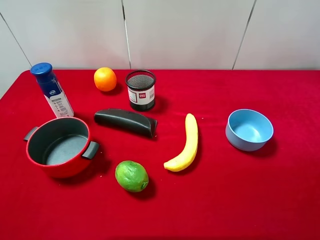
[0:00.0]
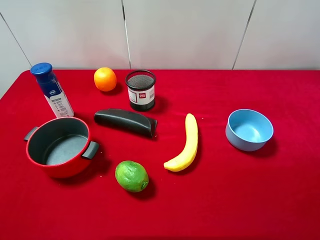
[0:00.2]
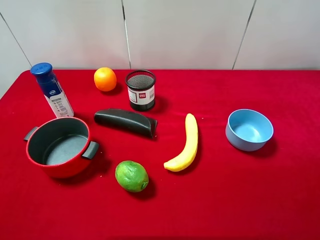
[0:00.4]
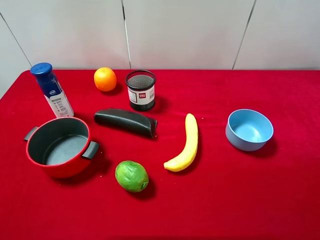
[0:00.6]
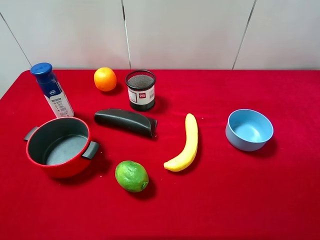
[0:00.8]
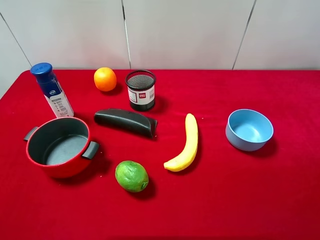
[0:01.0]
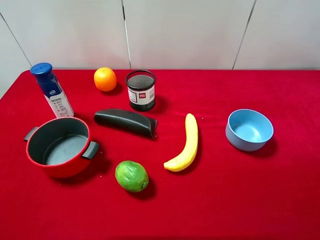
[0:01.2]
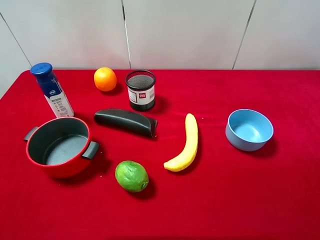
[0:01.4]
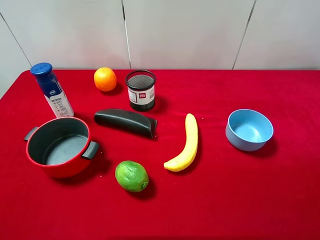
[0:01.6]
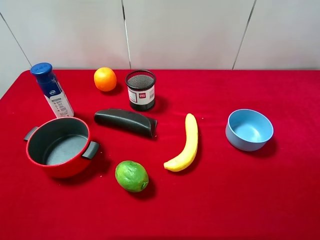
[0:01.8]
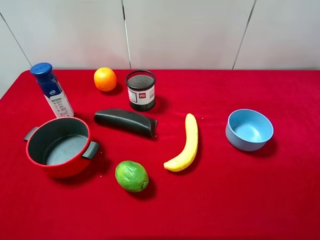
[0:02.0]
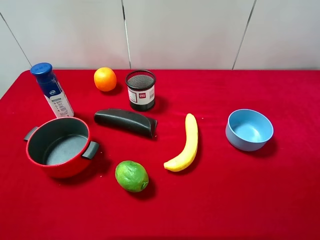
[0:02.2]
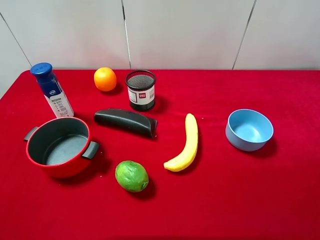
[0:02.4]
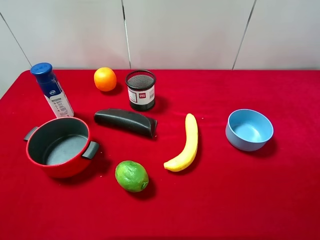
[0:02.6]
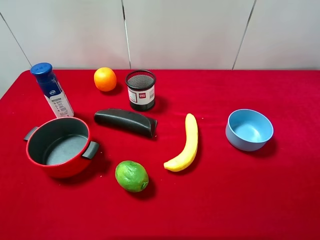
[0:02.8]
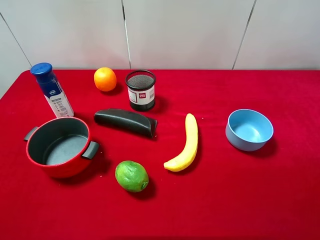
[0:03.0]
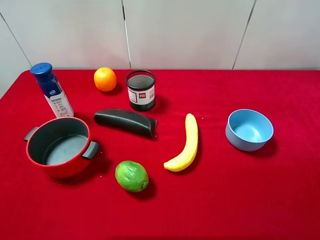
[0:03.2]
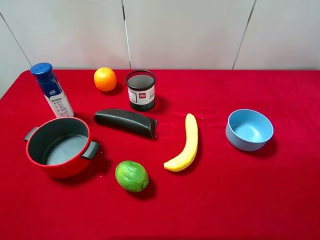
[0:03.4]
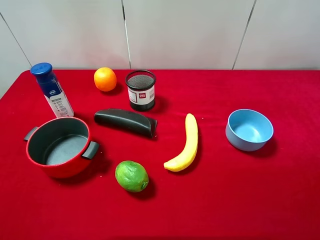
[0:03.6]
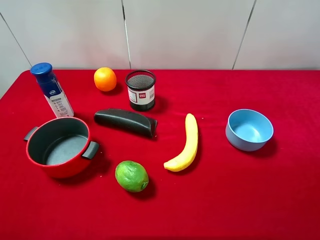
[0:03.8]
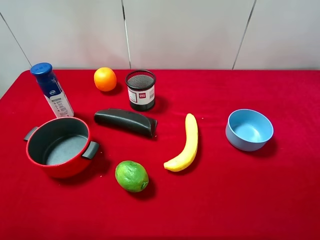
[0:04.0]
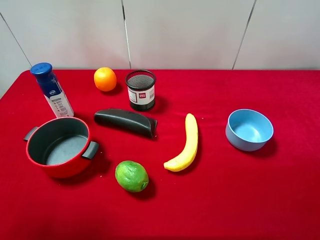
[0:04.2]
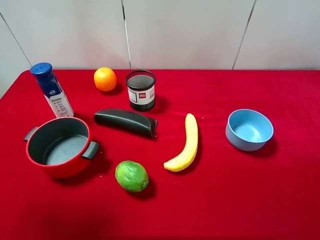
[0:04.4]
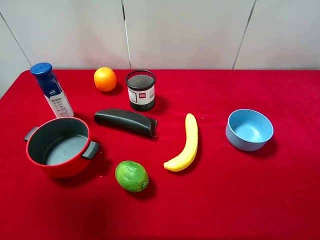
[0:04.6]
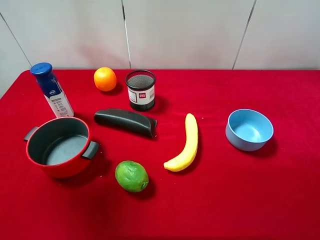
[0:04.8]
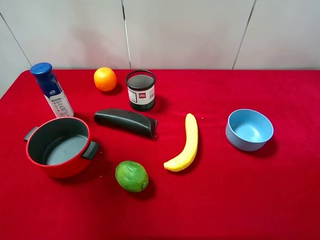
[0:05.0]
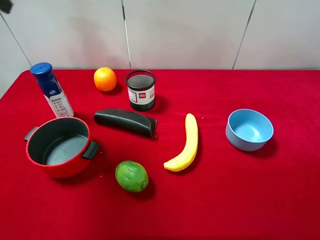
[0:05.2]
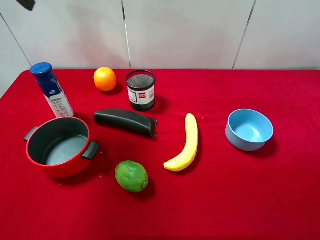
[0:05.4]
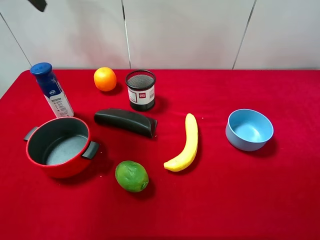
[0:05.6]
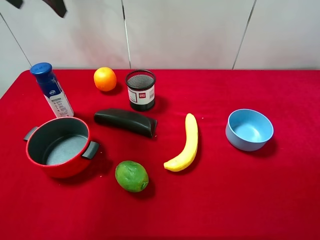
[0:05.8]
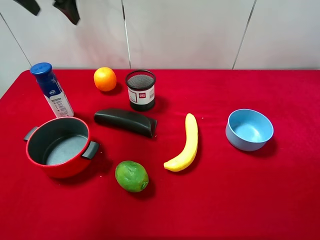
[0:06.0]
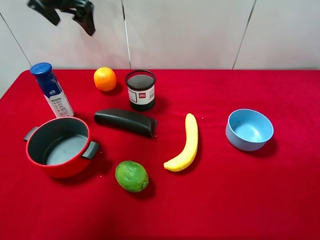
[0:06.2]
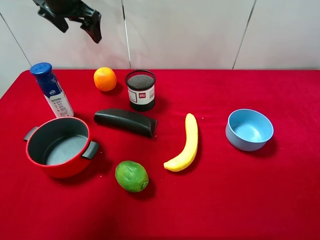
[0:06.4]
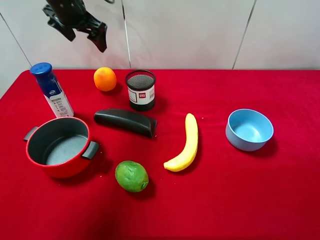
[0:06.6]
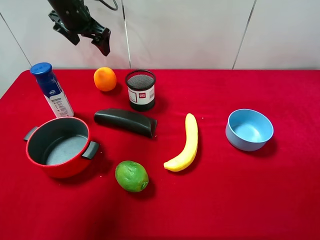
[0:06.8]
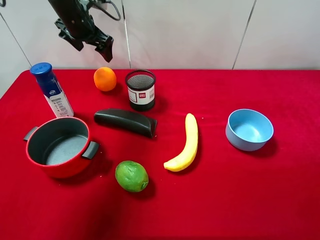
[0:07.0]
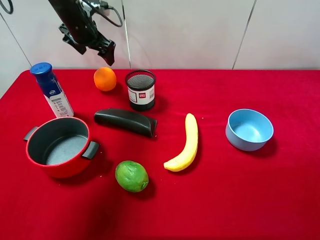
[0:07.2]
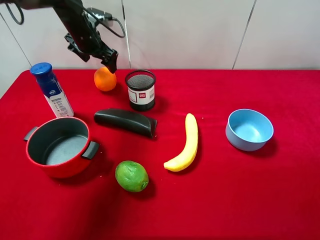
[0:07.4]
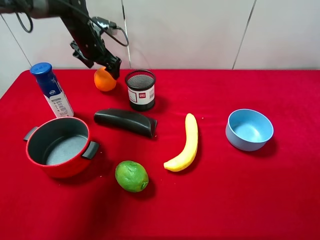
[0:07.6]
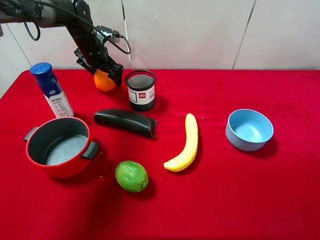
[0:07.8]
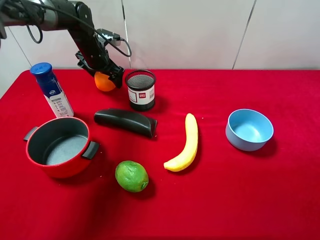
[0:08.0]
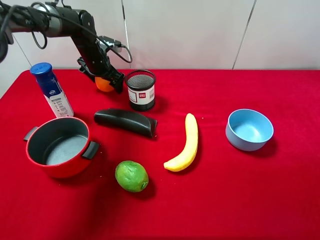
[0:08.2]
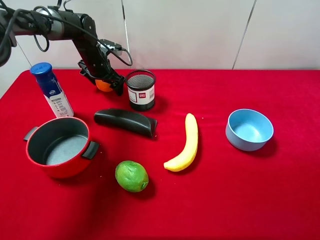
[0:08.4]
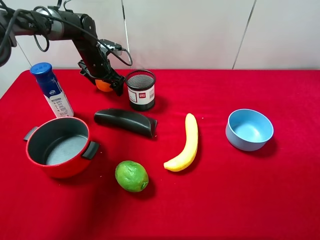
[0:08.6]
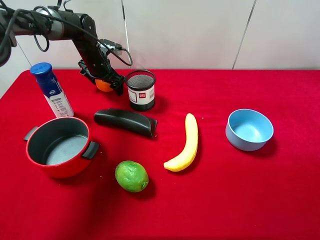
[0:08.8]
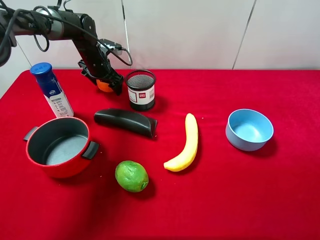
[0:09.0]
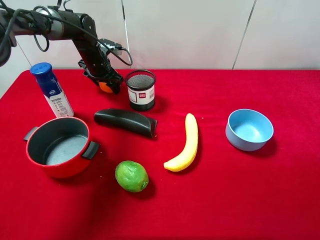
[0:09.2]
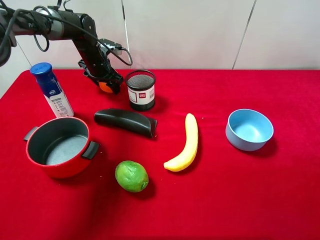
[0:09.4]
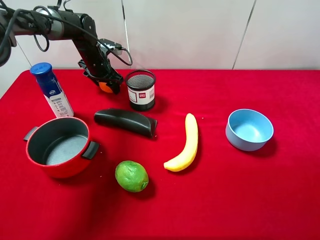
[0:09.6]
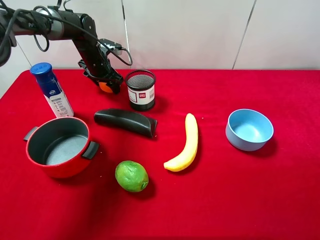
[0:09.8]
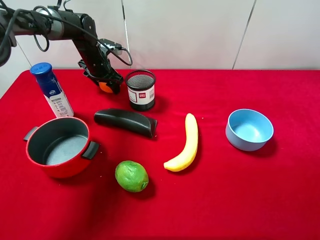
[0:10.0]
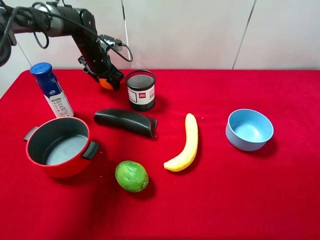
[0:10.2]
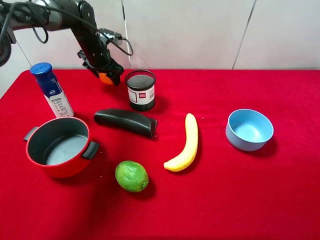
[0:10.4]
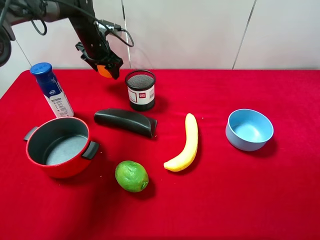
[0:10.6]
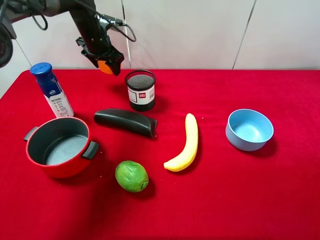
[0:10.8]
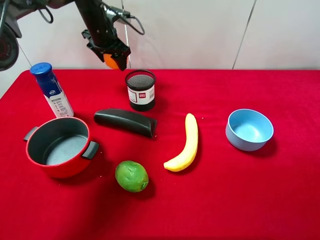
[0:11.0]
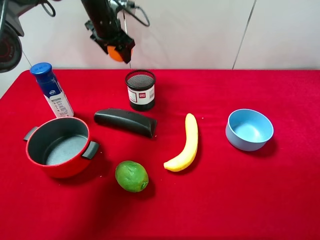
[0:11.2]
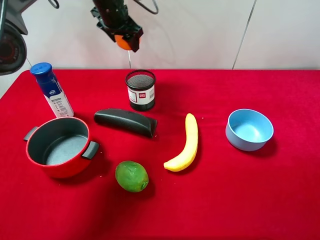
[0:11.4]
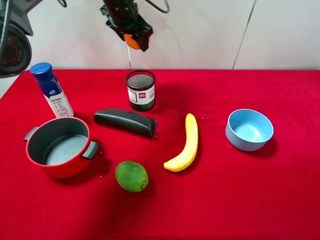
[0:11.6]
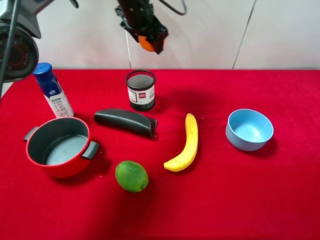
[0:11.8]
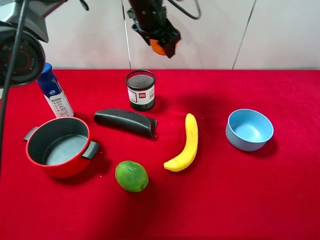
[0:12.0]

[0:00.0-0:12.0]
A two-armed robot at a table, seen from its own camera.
Task of the whole recording: pick up an item with a gripper and place it in a random container on the desktop.
0:00.0 to 0:03.0: The two grippers keep their place.
0:03.0 to 0:04.4: The left gripper moves forward and upward, about 20 cm.
0:04.4 to 0:06.0: The left gripper shifts roughly 30 cm forward.
0:06.0 to 0:07.6: The left gripper heads downward and forward, covering roughly 20 cm.
0:07.6 to 0:09.0: The left gripper moves downward, approximately 5 cm, and closes its fingers.
0:09.0 to 0:10.4: The left gripper closes.
0:10.4 to 0:12.0: The left gripper travels to the right and upward by approximately 20 cm.

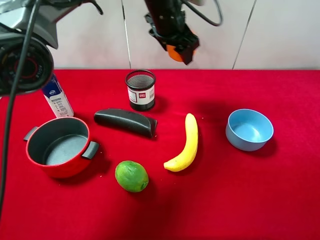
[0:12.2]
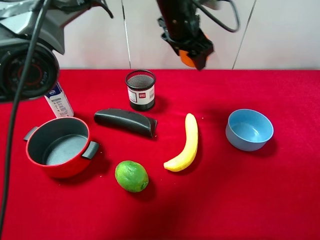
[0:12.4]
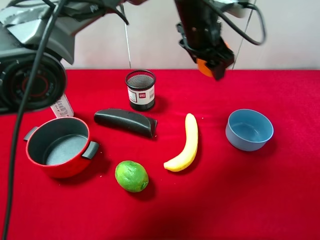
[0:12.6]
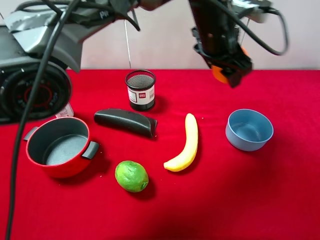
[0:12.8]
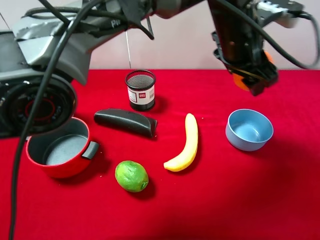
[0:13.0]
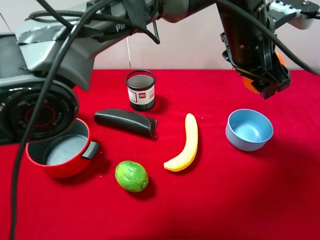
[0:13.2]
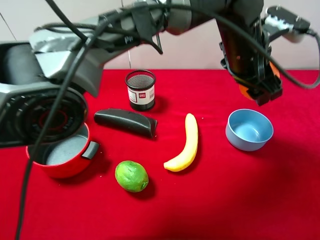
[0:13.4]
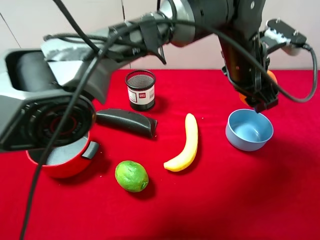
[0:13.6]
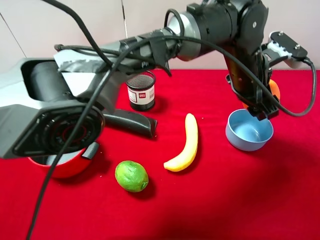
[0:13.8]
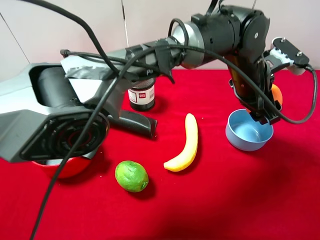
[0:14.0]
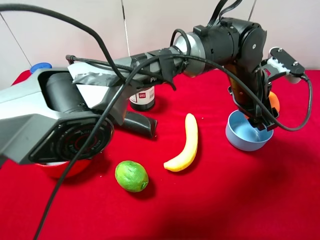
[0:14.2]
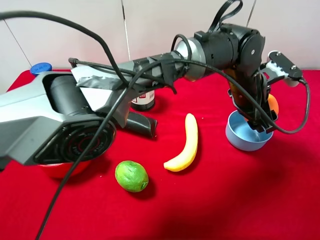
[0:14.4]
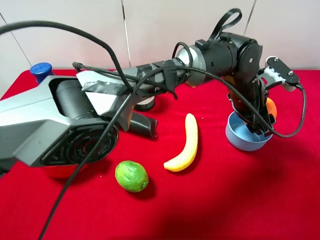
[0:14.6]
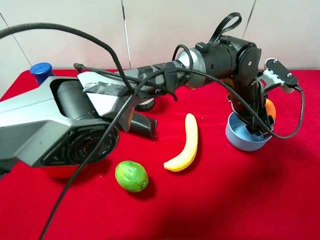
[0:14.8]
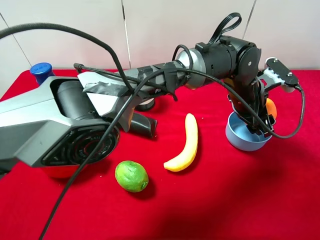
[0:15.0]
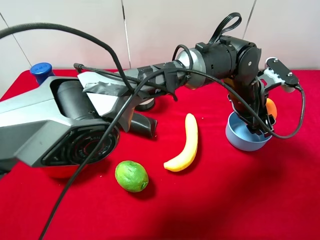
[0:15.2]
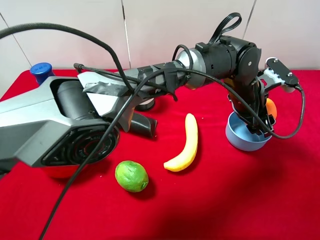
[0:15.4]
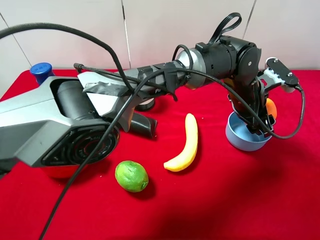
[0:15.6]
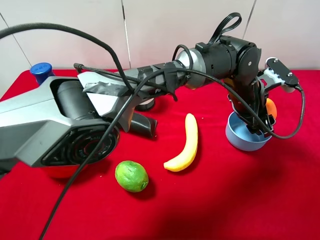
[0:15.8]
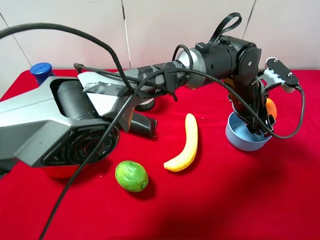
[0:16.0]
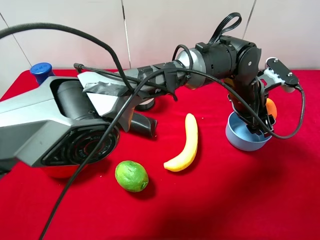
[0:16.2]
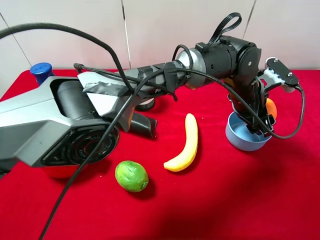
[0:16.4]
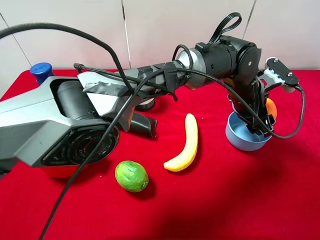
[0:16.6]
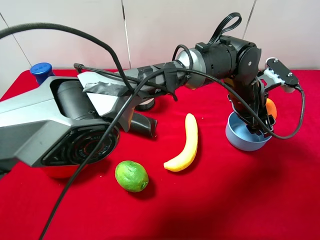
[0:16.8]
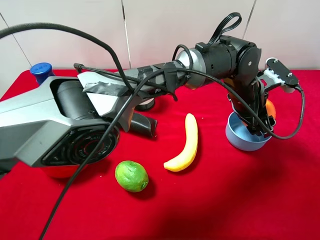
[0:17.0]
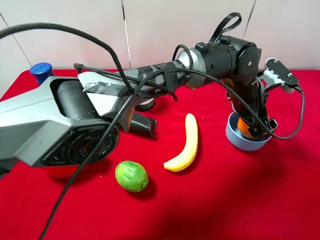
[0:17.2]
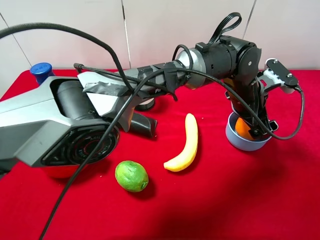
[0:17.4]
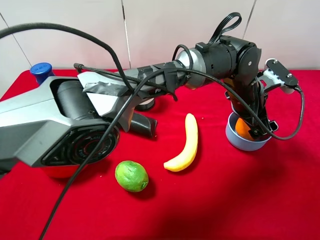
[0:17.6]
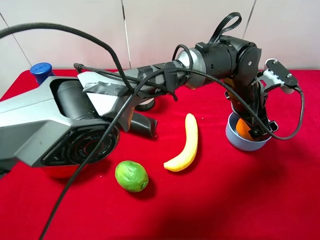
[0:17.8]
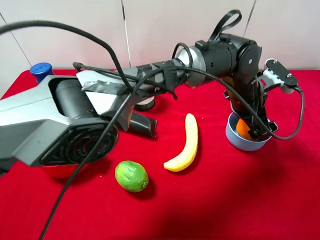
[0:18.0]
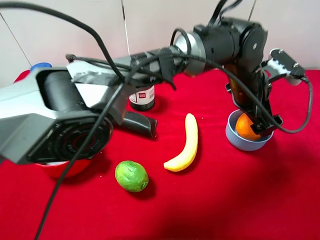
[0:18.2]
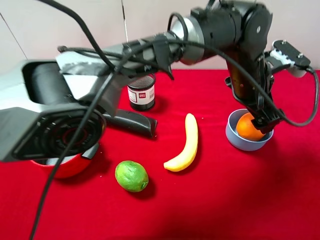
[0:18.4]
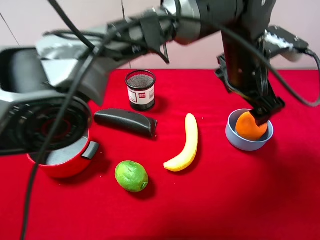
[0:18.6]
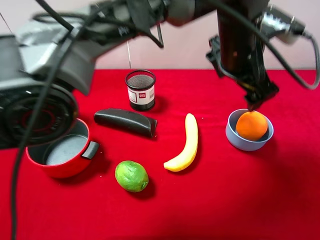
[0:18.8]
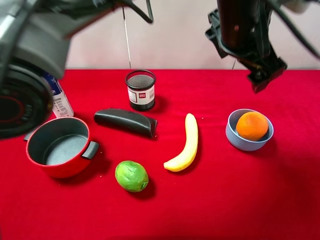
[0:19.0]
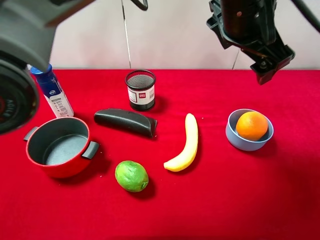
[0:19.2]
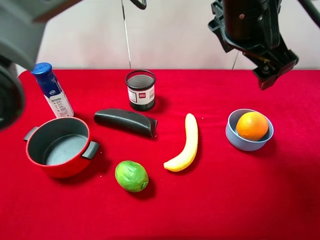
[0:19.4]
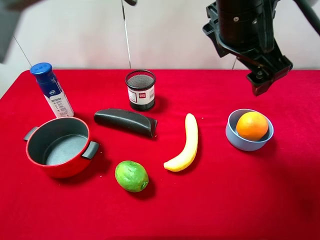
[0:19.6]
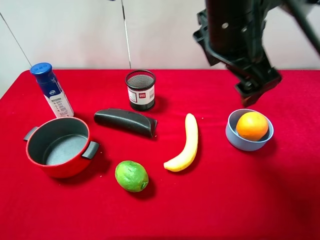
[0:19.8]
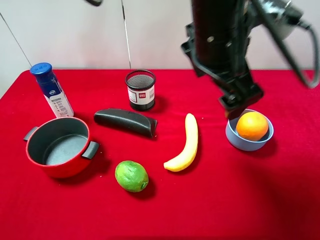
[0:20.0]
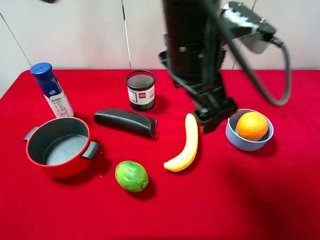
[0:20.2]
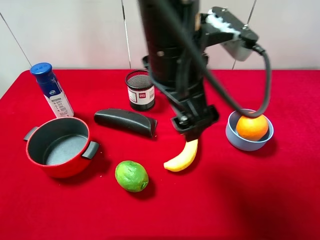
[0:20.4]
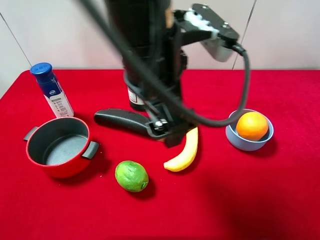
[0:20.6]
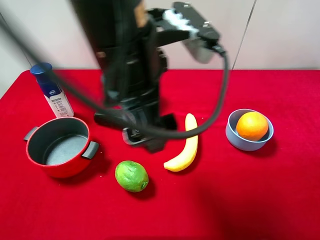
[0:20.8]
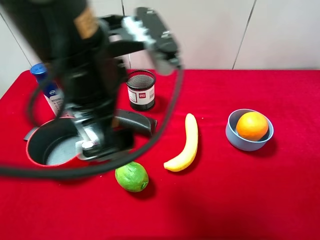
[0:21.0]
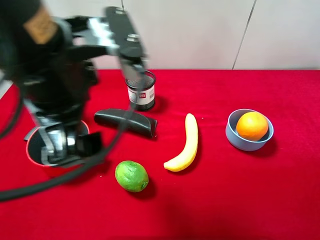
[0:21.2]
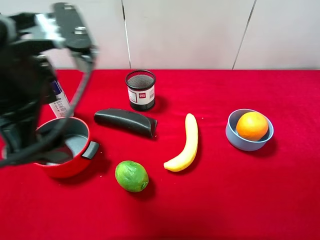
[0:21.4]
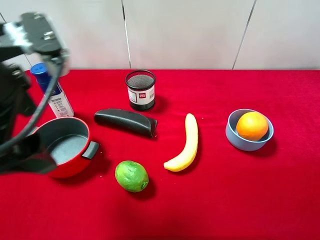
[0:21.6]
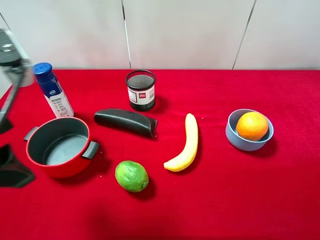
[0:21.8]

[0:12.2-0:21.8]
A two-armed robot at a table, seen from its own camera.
Task of the whole recording: pick up an item with a gripper and place it in a random container on the desktop.
0:12.2 to 0:13.8: The left gripper travels to the right, backward and downward by roughly 20 cm.
0:13.8 to 0:15.4: The left gripper goes approximately 5 cm downward.
0:15.4 to 0:17.0: The two grippers keep their place.
0:17.0 to 0:18.6: The left gripper shifts roughly 10 cm upward, and opens up.
0:18.6 to 0:20.2: The left gripper travels to the left, backward and upward by some 15 cm.
0:20.2 to 0:21.8: The left gripper moves to the left, some 25 cm.
